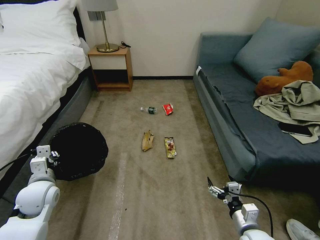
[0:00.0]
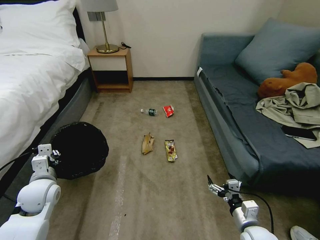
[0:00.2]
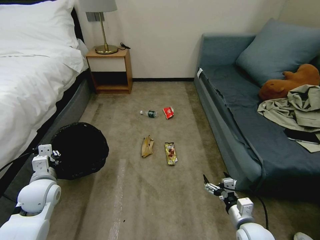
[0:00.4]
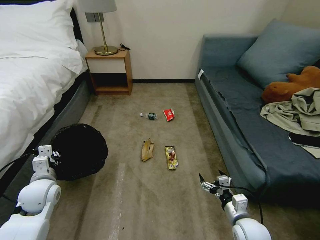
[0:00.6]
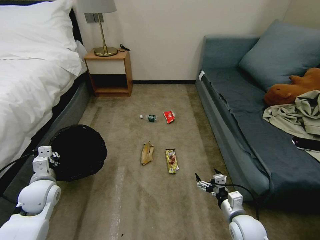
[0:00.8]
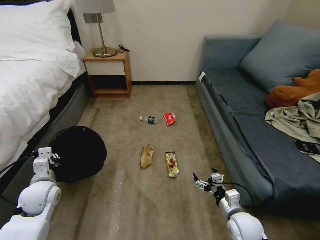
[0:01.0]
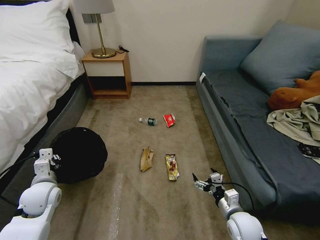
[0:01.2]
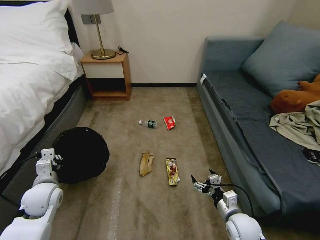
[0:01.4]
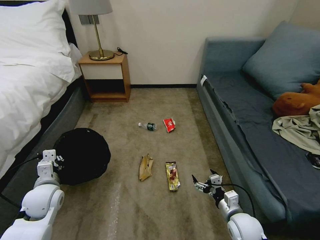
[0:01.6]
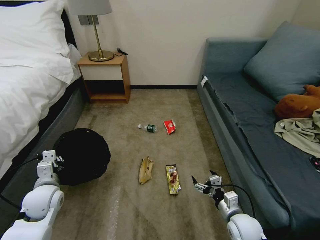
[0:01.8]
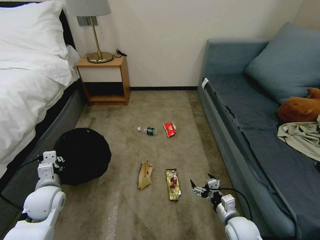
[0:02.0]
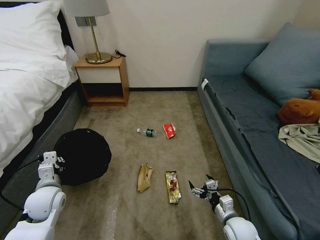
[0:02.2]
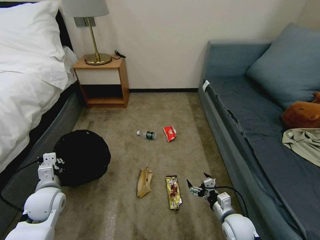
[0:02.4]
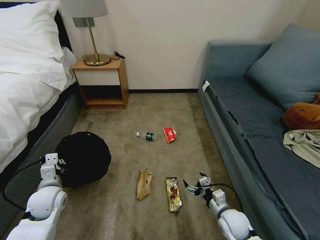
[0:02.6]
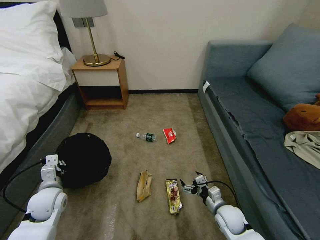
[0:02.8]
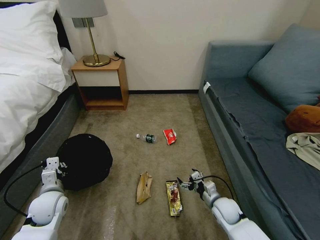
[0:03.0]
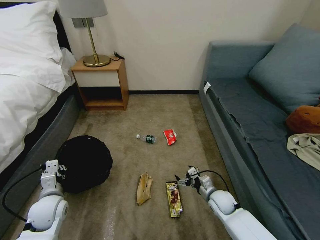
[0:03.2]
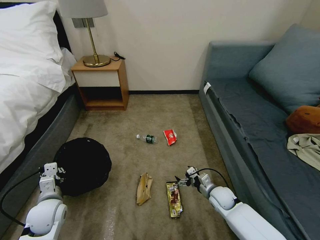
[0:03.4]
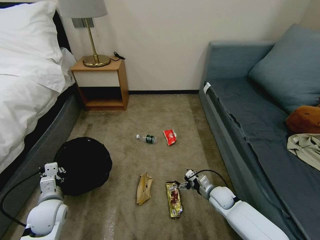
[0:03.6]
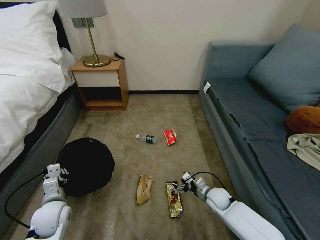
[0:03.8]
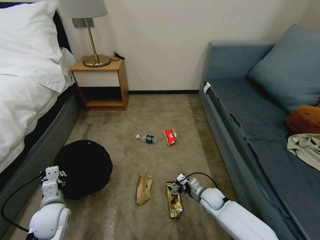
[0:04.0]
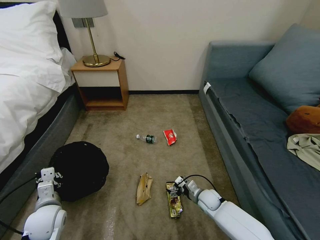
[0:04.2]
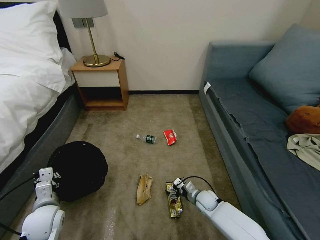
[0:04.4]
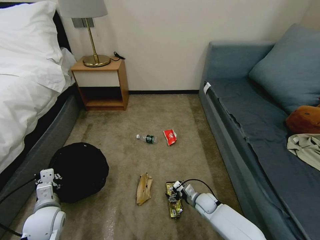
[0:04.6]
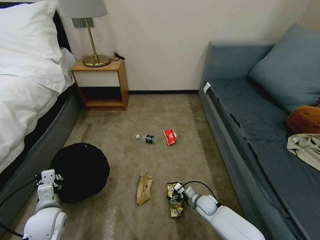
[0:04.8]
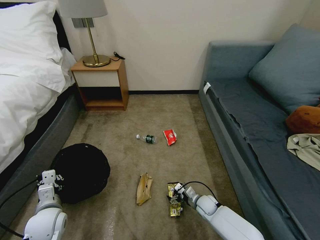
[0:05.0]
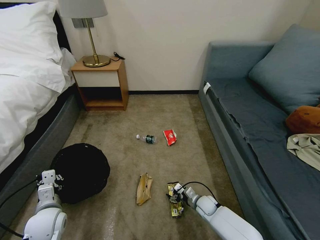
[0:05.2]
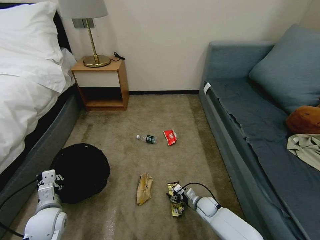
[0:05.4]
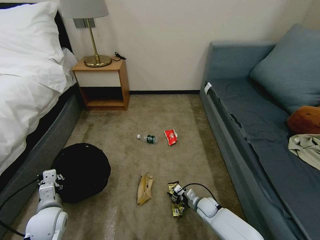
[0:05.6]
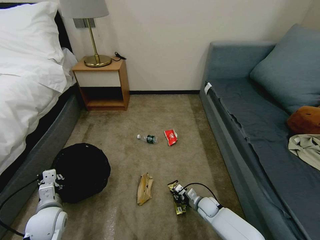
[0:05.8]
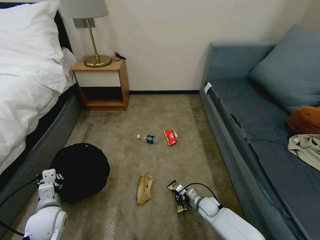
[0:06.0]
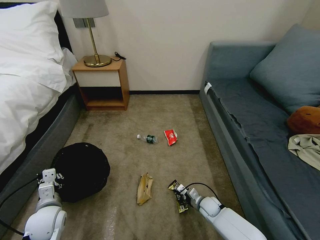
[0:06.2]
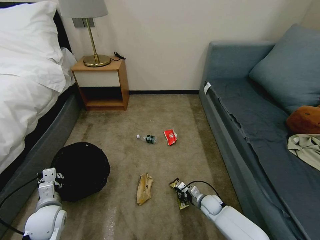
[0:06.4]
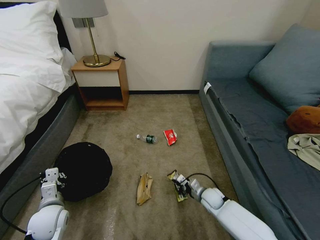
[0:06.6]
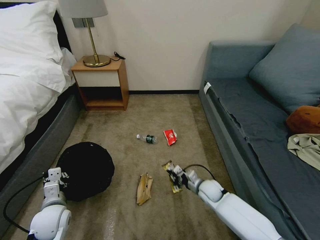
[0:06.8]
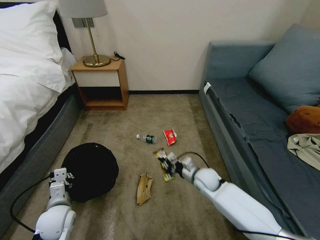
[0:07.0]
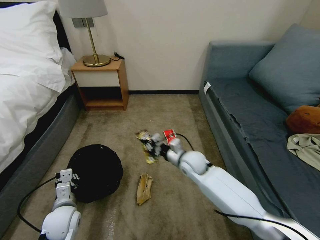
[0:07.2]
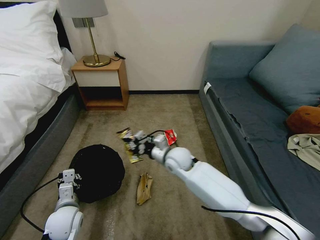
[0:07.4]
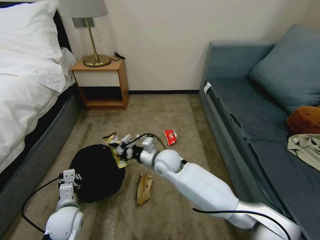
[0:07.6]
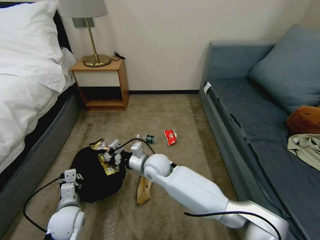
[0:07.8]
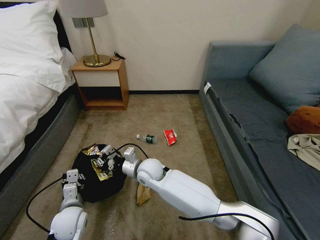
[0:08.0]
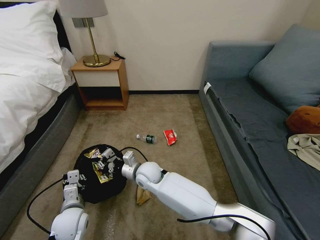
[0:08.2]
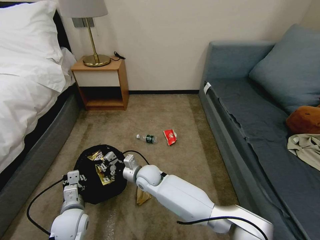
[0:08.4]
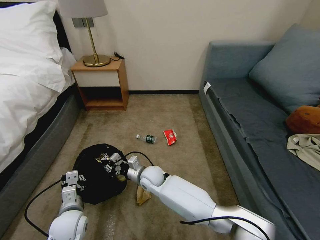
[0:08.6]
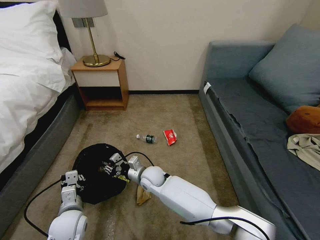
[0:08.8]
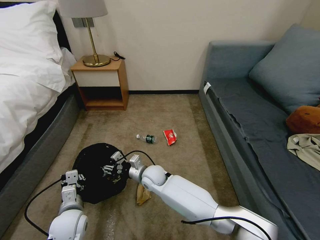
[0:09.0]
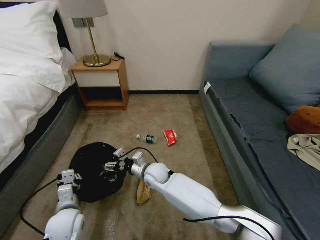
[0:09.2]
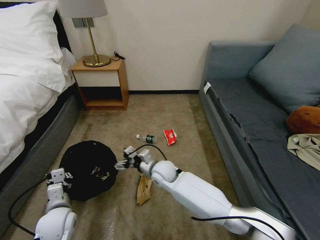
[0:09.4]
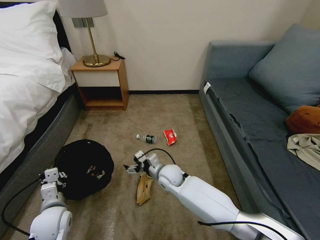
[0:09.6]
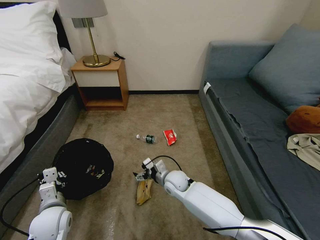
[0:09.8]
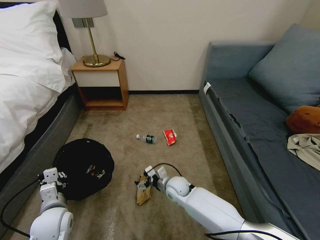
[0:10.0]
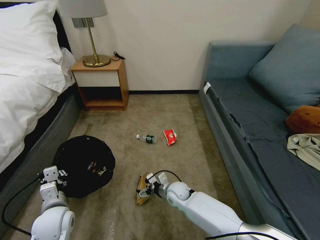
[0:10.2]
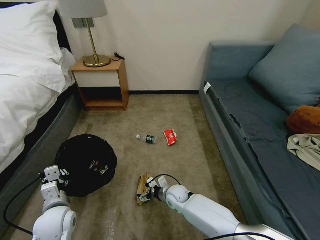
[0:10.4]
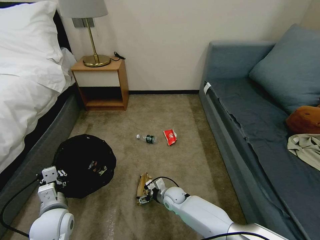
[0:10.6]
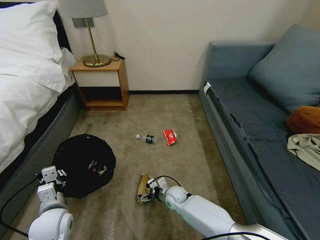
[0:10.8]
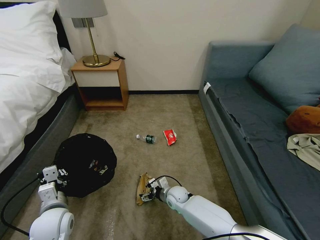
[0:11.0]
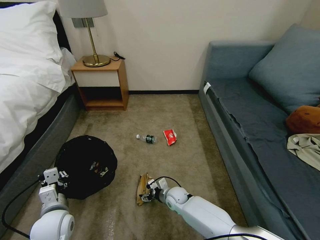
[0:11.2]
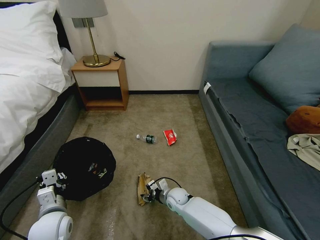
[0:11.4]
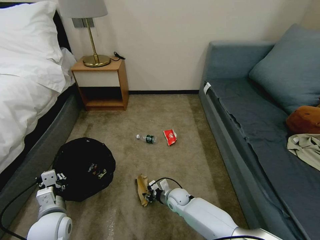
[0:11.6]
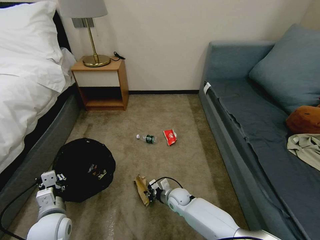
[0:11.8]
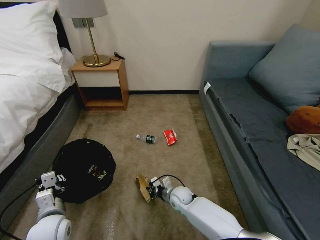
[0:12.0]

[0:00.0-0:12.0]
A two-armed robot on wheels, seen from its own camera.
Task of the whole recording: Pick up the trash bin, then pick up the garbage on the floor and place it into the trash bin.
0:00.0 to 0:01.6: The right gripper ends up some 5 cm from where it was.
0:01.6 to 0:03.0: The right gripper shifts roughly 10 cm forward and downward.
0:03.0 to 0:04.4: The right gripper heads downward and forward, covering some 10 cm.
0:04.4 to 0:06.0: The right gripper closes.
0:06.0 to 0:07.6: The right gripper shifts about 35 cm upward and to the left. The left gripper ends up about 5 cm from where it was.
0:07.6 to 0:09.0: The right gripper goes approximately 10 cm downward and to the left, and opens.
0:09.0 to 0:10.4: The right gripper is displaced downward and to the right by approximately 15 cm, and opens.
0:10.4 to 0:12.0: The right gripper closes up.

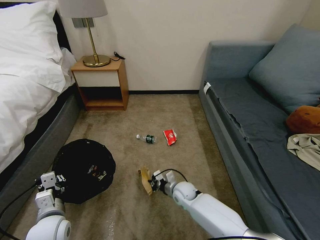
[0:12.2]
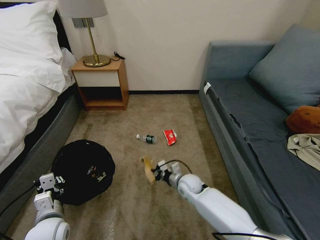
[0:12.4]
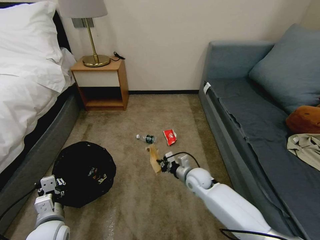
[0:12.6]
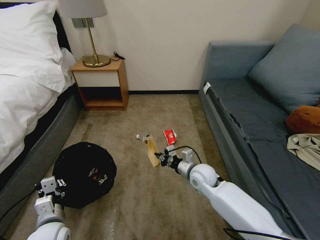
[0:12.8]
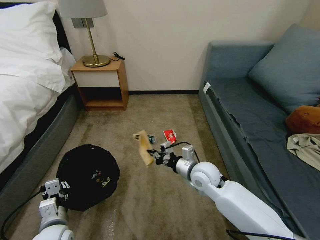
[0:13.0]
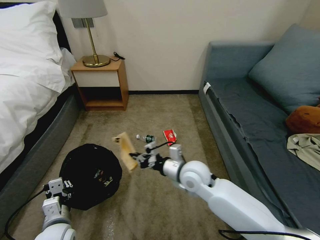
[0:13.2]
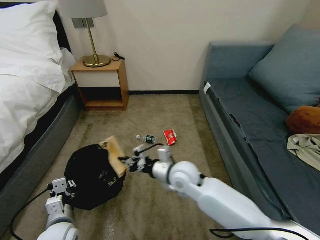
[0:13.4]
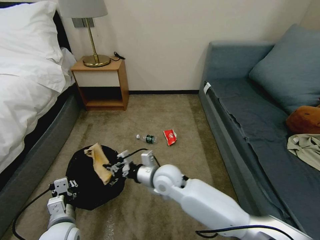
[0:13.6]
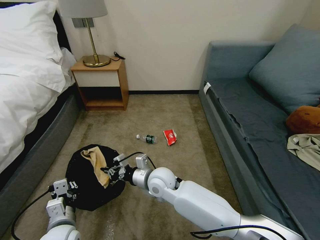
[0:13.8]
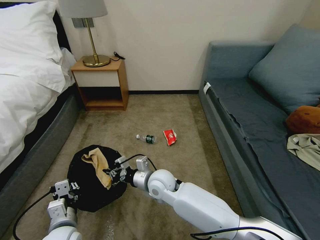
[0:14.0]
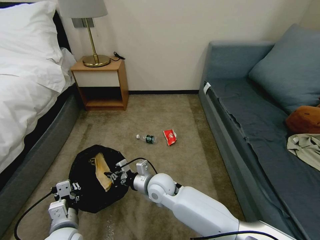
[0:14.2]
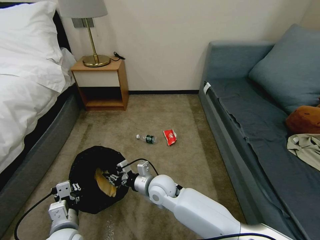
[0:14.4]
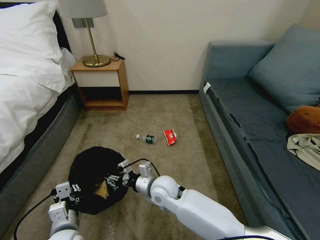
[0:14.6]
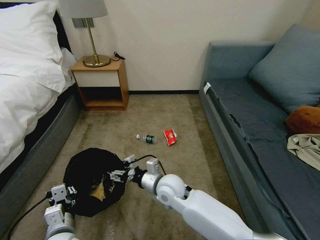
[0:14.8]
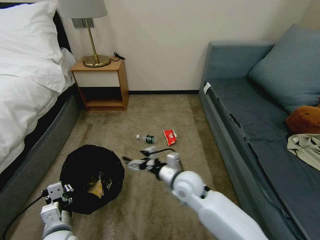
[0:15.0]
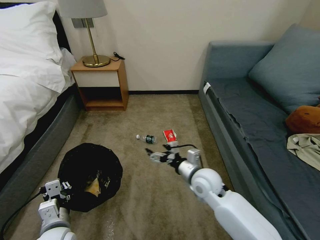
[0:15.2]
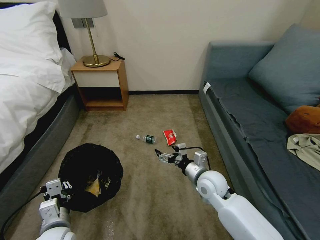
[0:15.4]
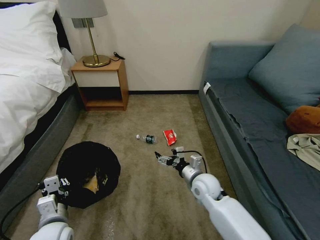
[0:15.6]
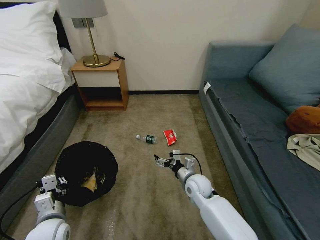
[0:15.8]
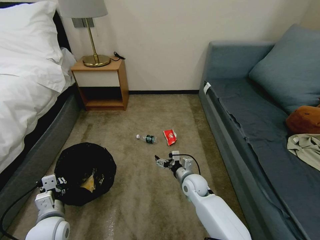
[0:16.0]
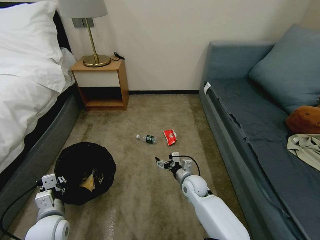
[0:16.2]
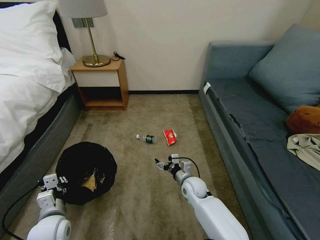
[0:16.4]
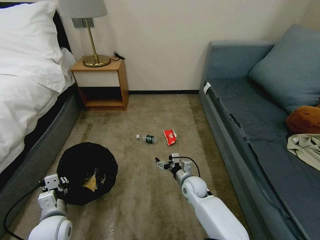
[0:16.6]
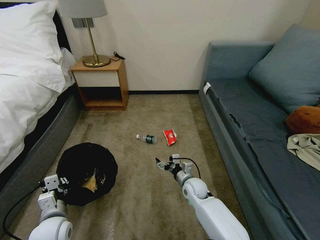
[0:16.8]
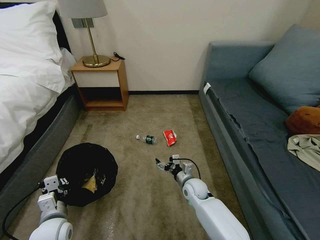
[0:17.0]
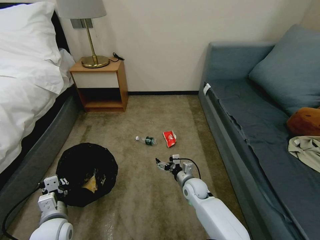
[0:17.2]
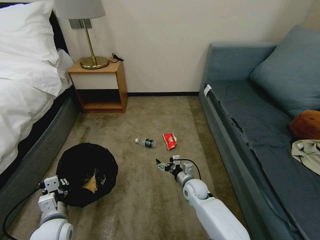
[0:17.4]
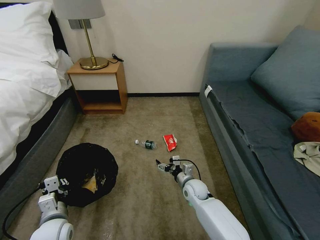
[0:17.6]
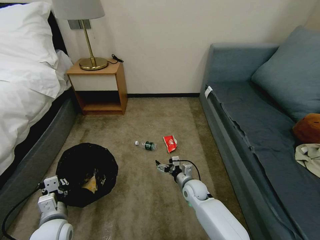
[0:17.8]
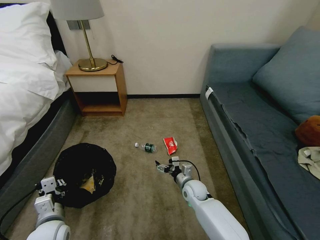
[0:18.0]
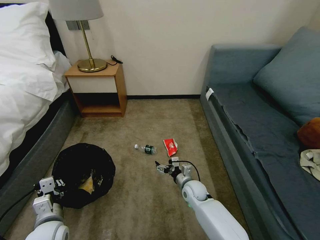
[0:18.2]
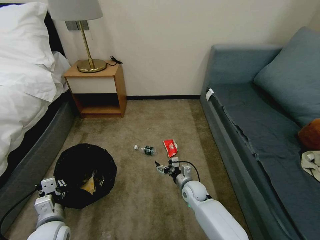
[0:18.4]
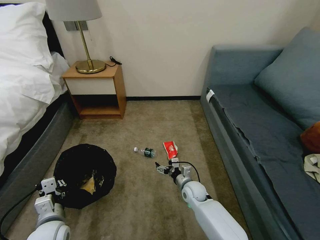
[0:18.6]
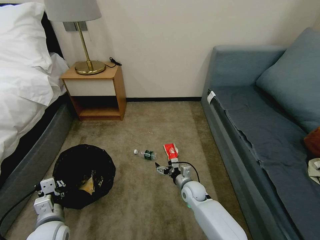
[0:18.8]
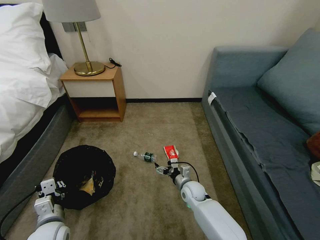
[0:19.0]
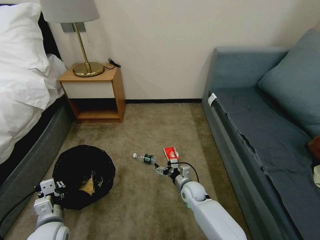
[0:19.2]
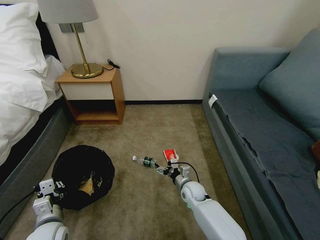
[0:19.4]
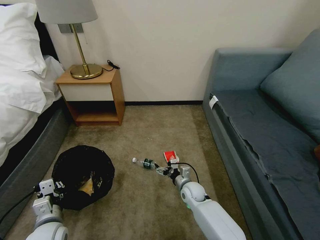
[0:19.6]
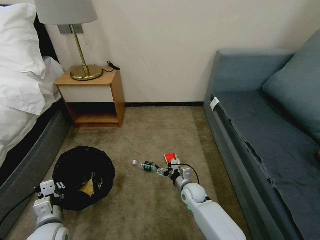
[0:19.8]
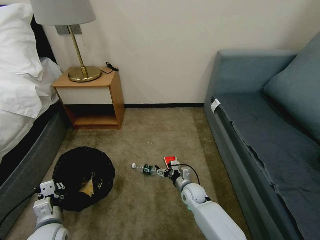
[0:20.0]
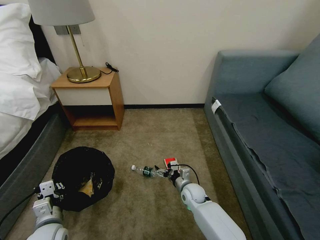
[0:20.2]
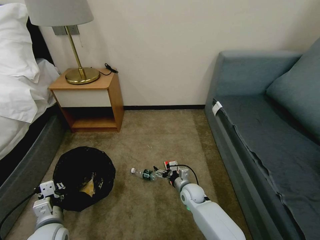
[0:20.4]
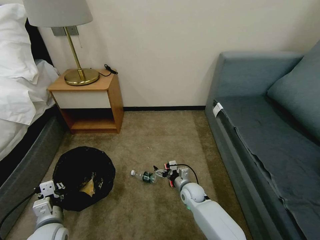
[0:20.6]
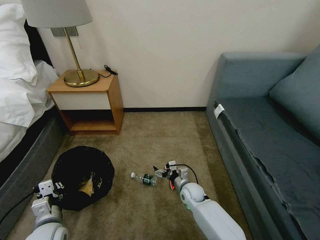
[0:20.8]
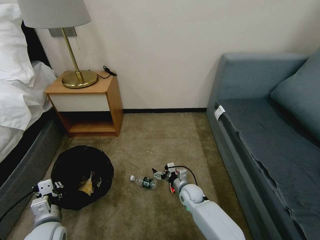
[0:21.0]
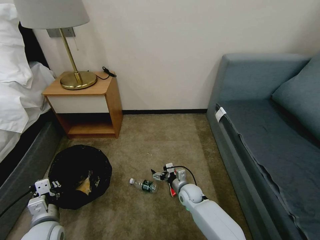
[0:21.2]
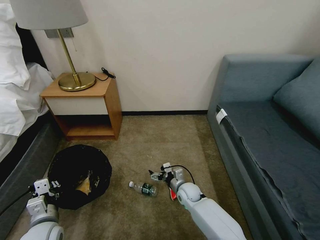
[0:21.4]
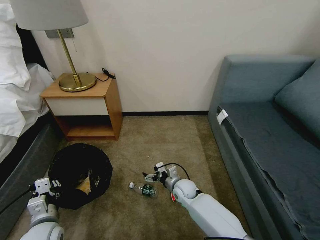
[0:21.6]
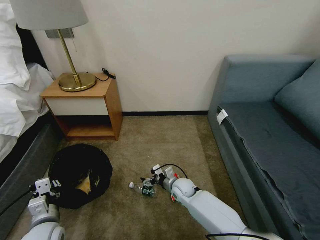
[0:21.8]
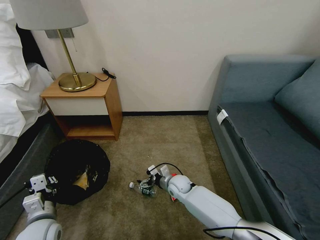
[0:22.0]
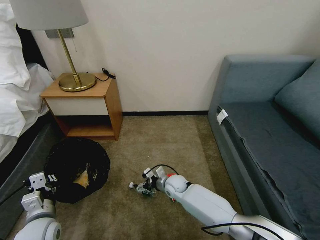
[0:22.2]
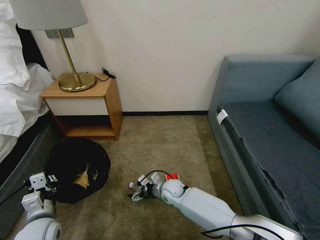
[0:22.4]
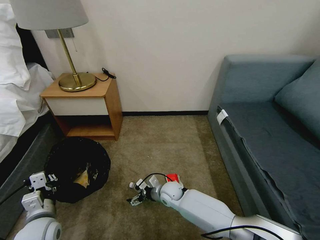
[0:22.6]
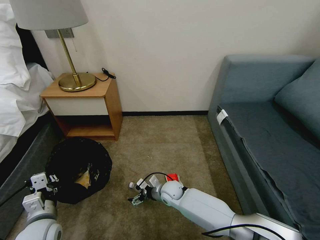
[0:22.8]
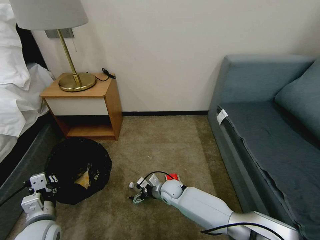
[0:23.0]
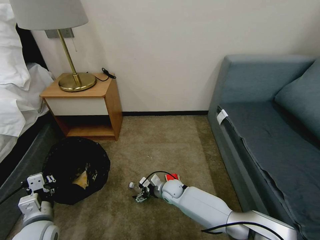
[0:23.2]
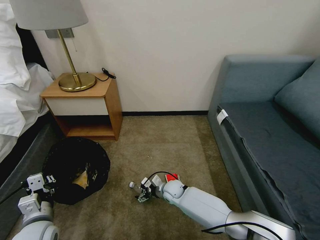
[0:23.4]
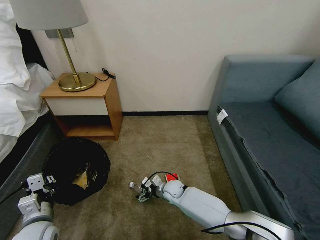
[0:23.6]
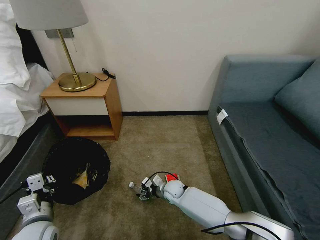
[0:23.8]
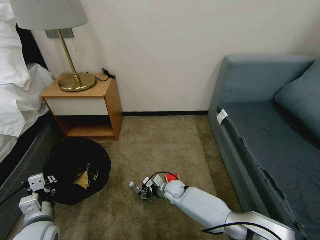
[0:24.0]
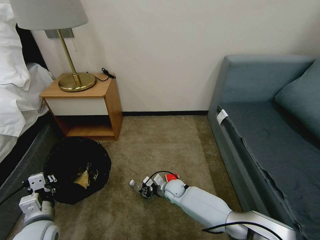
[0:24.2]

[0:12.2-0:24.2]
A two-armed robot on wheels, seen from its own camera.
Task of the whole recording: Pick up the trash bin, then pick up the garbage on the floor and place it into the trash bin.
0:12.2 to 0:13.8: The right gripper shifts roughly 20 cm upward and to the left.
0:13.8 to 0:15.2: The right gripper is displaced to the right by roughly 15 cm, and opens its fingers.
0:15.2 to 0:16.6: The right gripper is displaced downward by about 15 cm. Meanwhile the left gripper shifts by some 5 cm.
0:16.6 to 0:19.8: The grippers stay close to where they were, moving slightly.
0:21.2 to 0:22.6: The right gripper goes roughly 10 cm to the left.
0:22.6 to 0:24.2: The right gripper closes.
